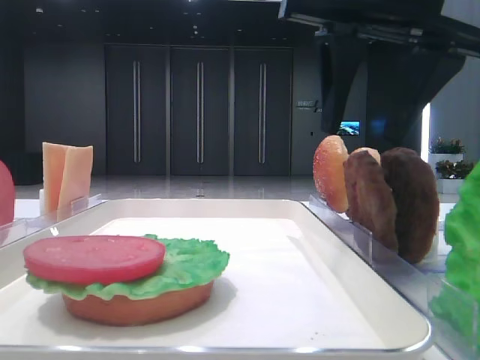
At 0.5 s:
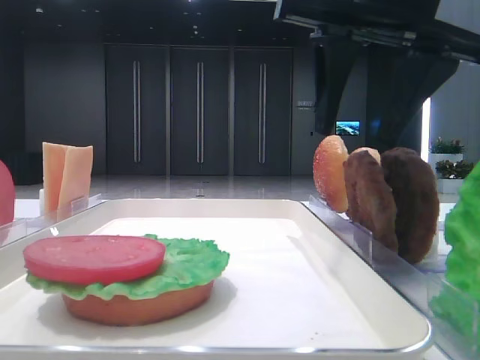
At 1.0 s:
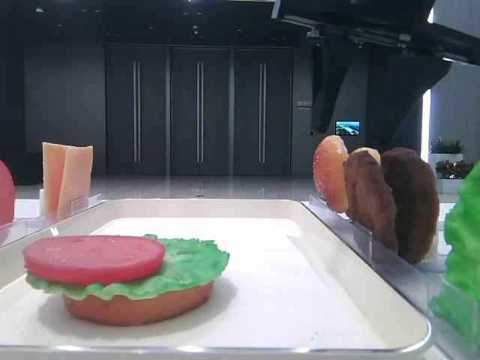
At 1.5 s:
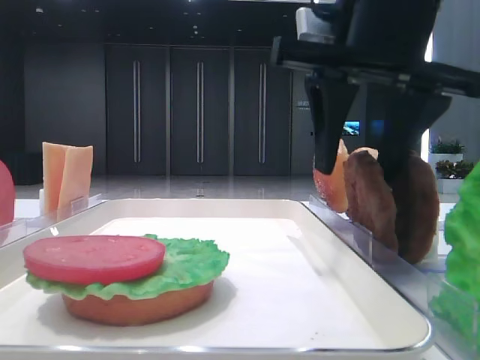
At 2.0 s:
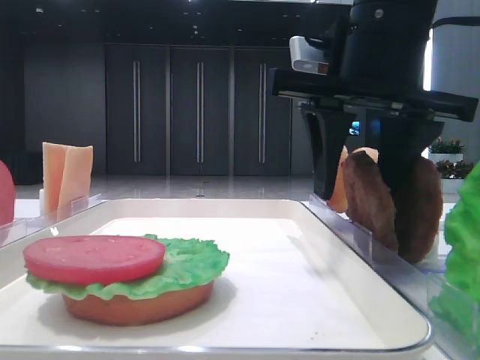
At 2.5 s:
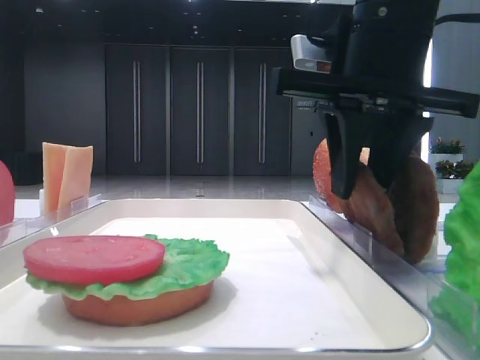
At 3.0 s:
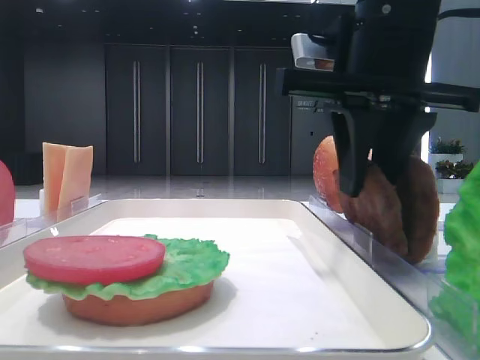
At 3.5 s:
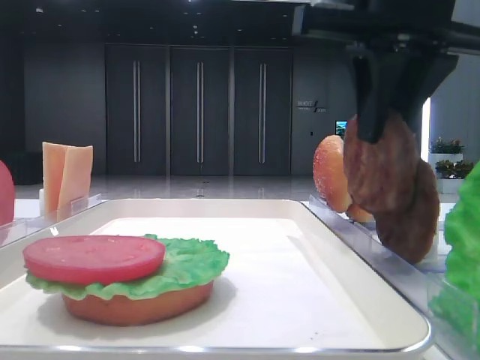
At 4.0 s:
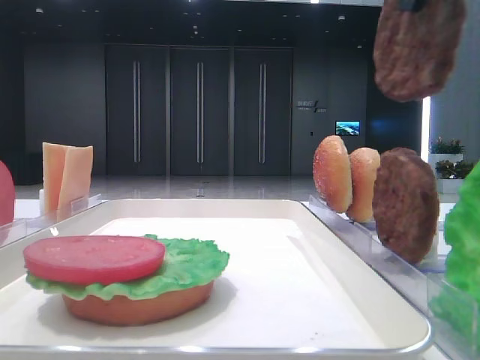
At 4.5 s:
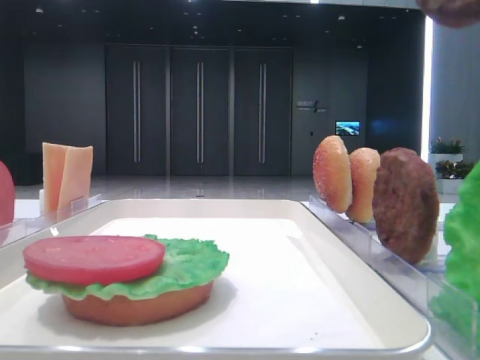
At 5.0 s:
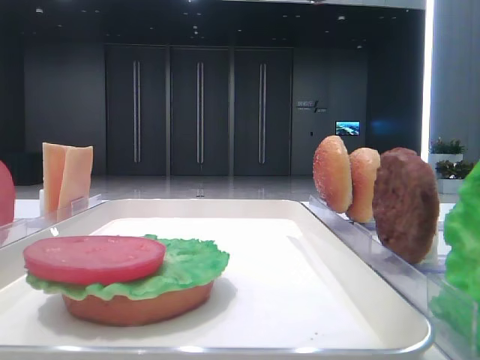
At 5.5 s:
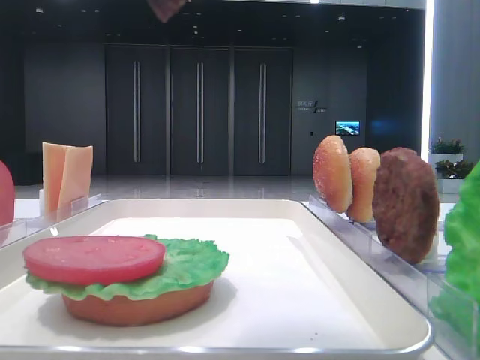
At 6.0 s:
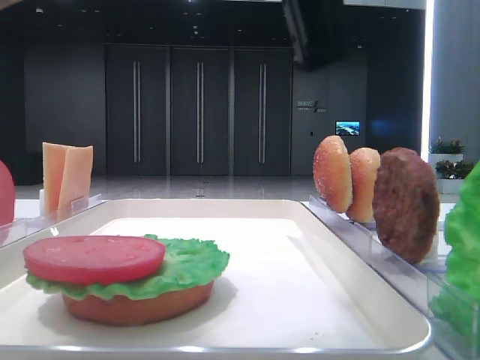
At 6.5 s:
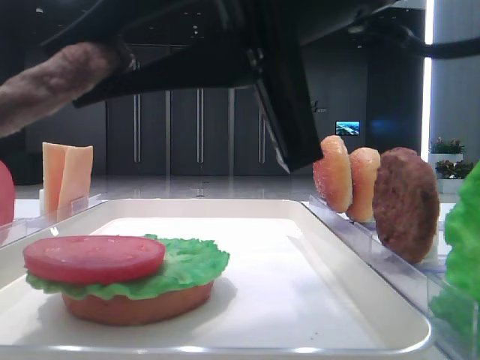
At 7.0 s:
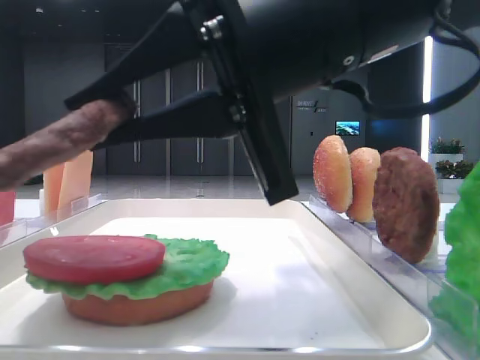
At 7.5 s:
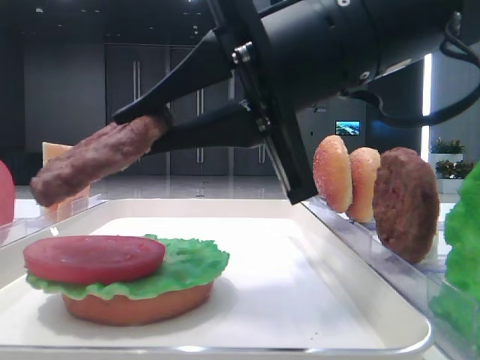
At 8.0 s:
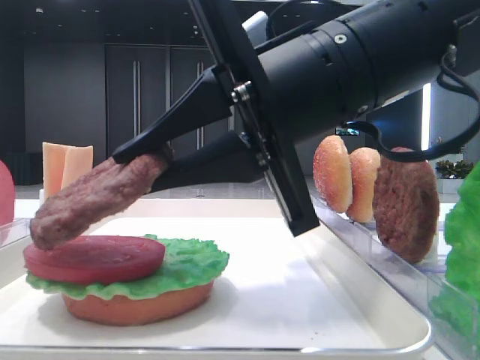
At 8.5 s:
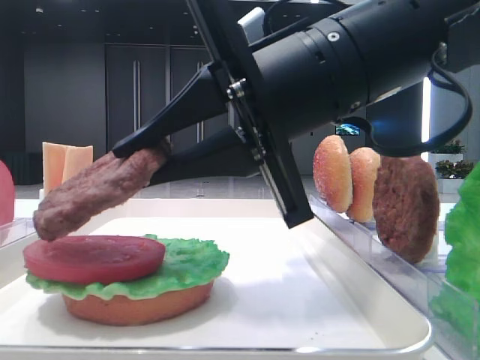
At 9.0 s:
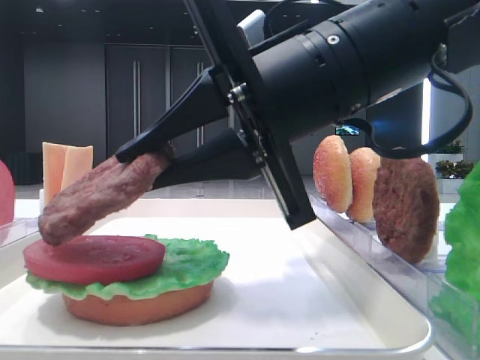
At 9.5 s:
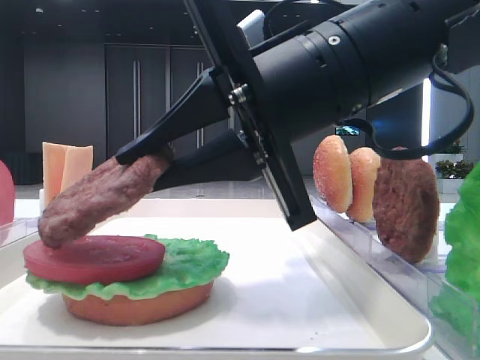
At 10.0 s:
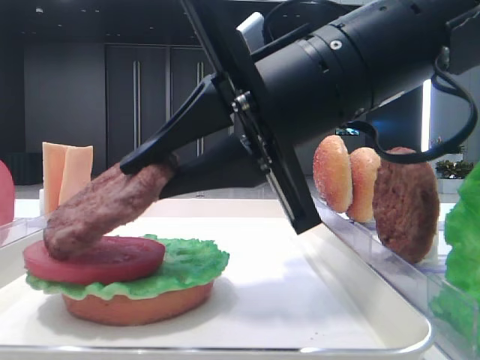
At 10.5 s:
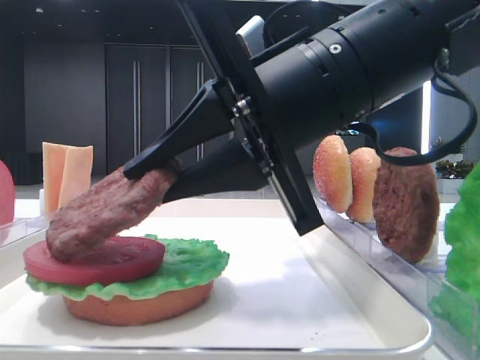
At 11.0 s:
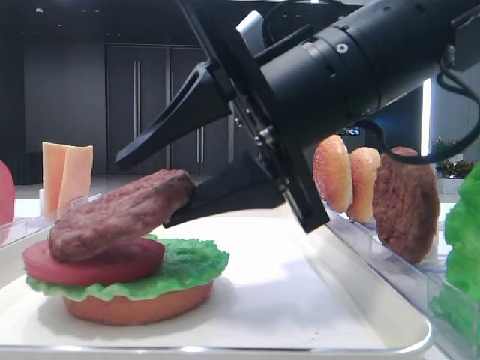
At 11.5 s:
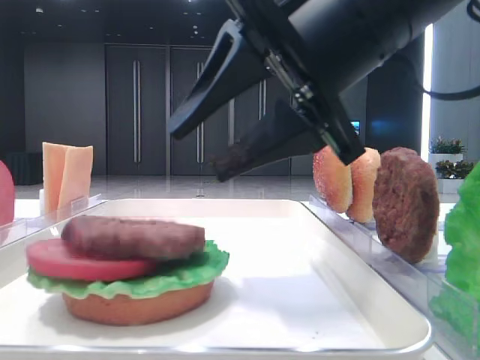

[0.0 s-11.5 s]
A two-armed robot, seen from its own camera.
Step, 0.0 to 3.0 s: Grab the patty with the right hand.
Step, 3.5 to 11.0 s: Place the patty on the tomato slice with the right hand.
0.0 to 2.0 s: The right gripper moves about 5 cm.
2.0 to 4.0 s: The right gripper goes some 15 cm upward and backward, and closes.
4.0 to 6.0 s: The right gripper shifts roughly 15 cm to the left, downward and backward.
6.0 to 7.5 s: The right gripper moves forward and downward, roughly 10 cm.
9.5 to 11.5 s: The right gripper opens.

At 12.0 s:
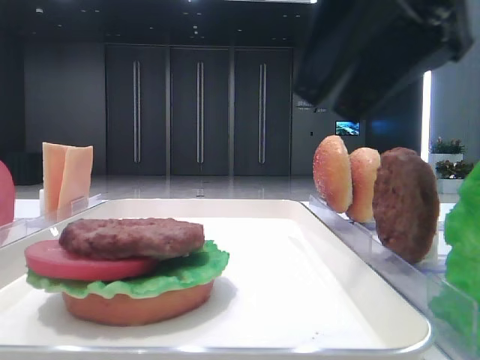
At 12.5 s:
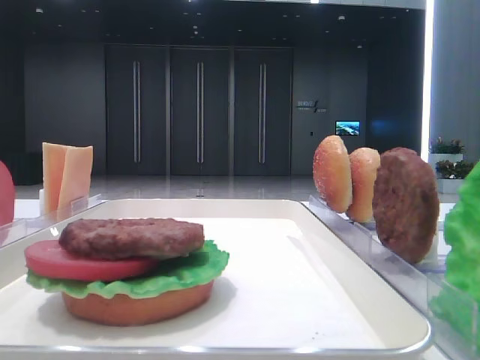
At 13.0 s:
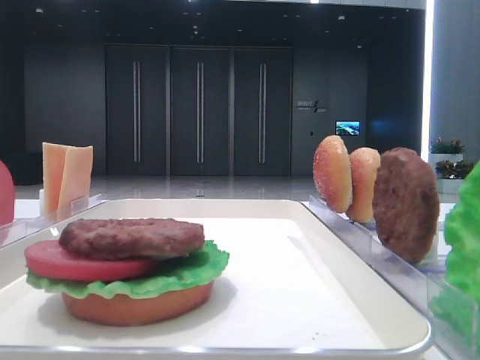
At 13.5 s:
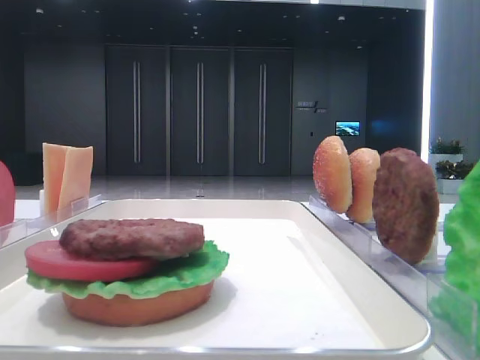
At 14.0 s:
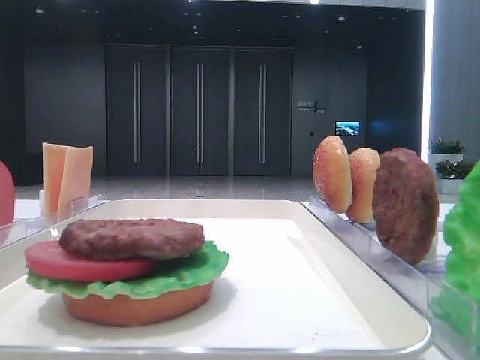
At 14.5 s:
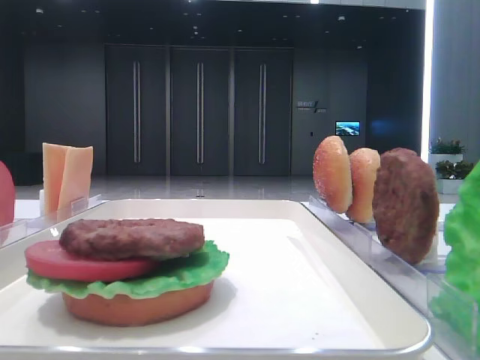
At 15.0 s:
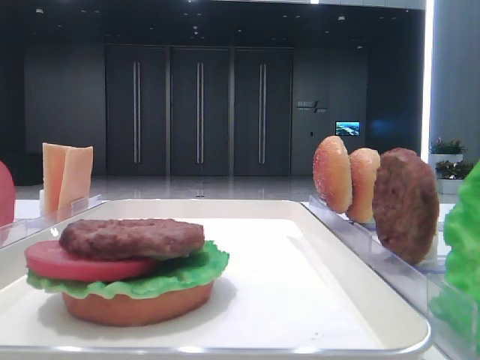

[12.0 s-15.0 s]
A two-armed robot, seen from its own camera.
12.0 to 13.5 s: The right gripper travels backward and to the right by about 25 cm.

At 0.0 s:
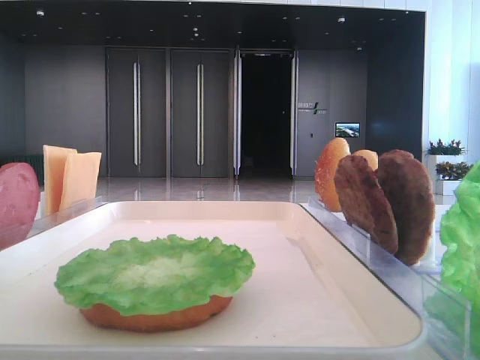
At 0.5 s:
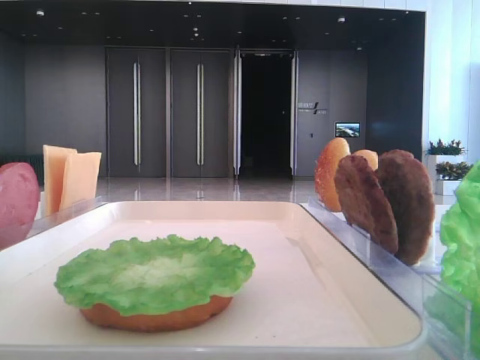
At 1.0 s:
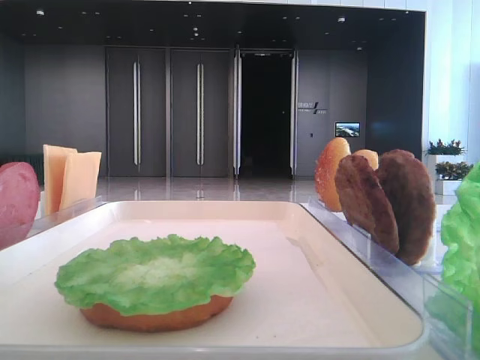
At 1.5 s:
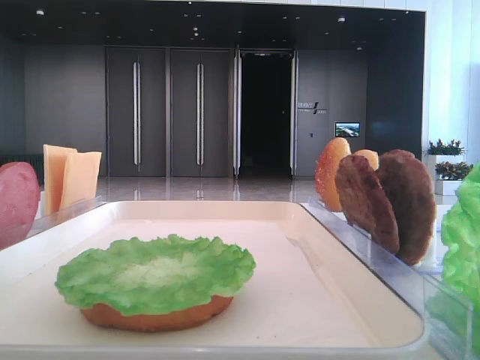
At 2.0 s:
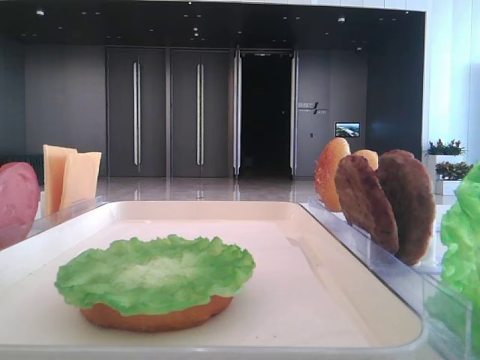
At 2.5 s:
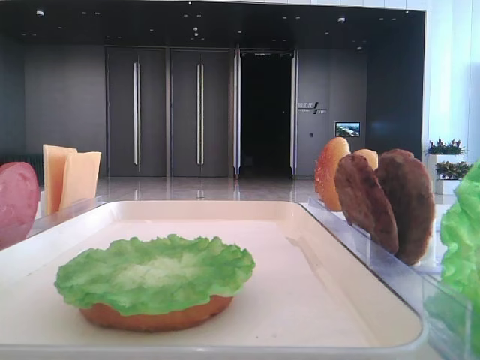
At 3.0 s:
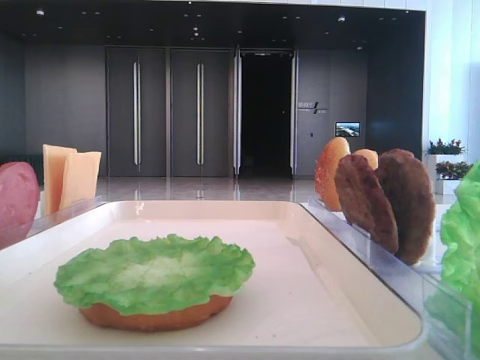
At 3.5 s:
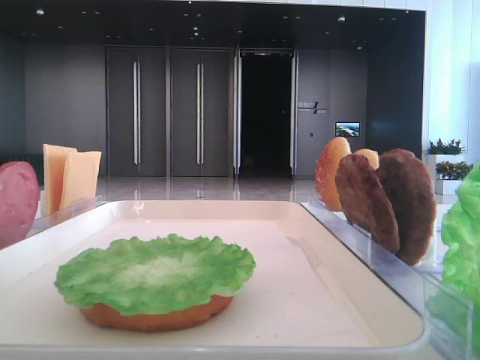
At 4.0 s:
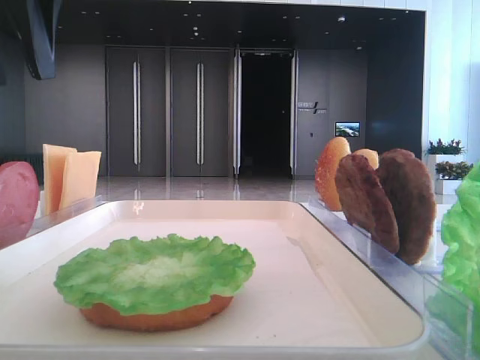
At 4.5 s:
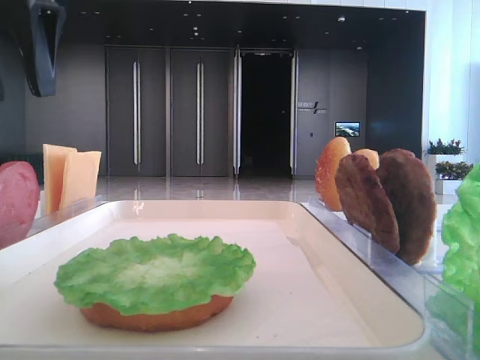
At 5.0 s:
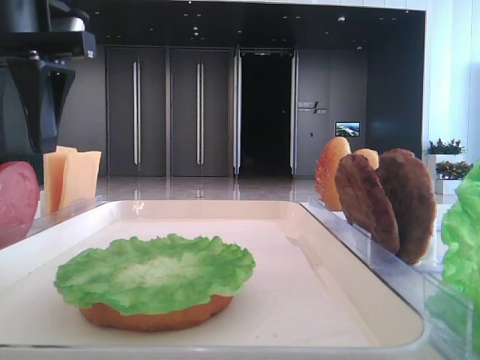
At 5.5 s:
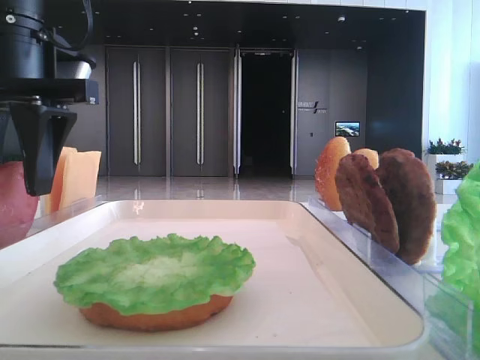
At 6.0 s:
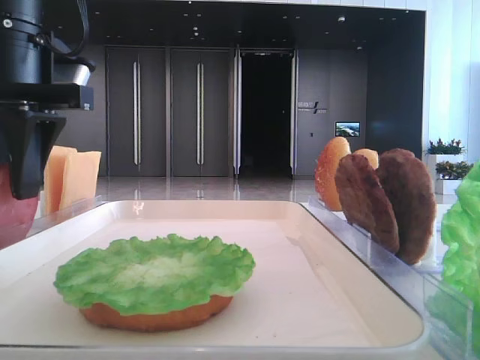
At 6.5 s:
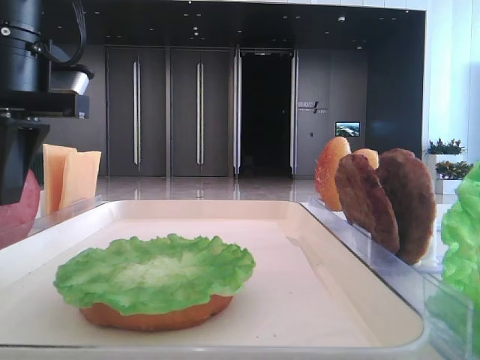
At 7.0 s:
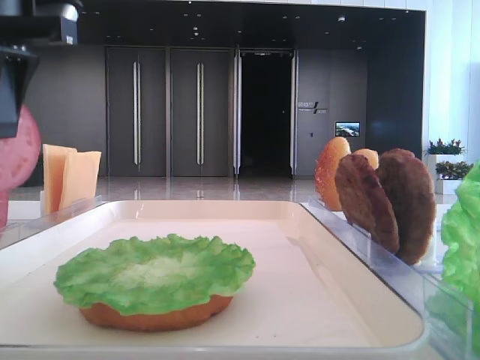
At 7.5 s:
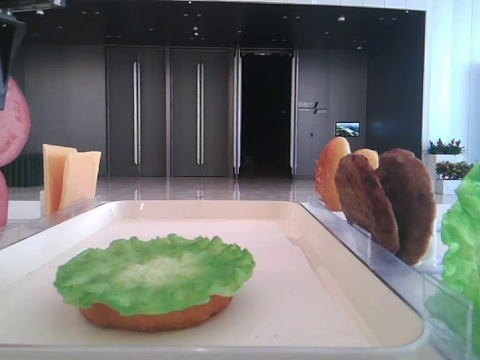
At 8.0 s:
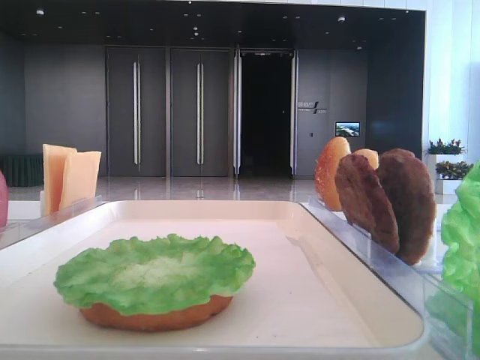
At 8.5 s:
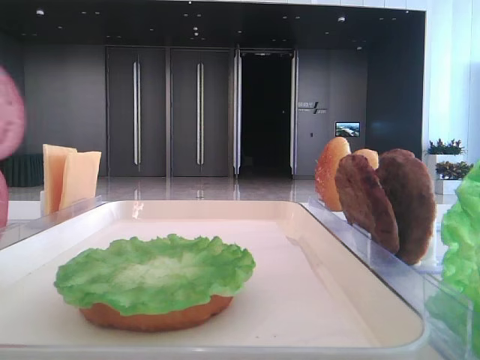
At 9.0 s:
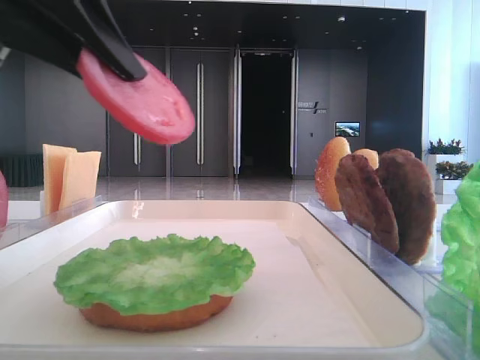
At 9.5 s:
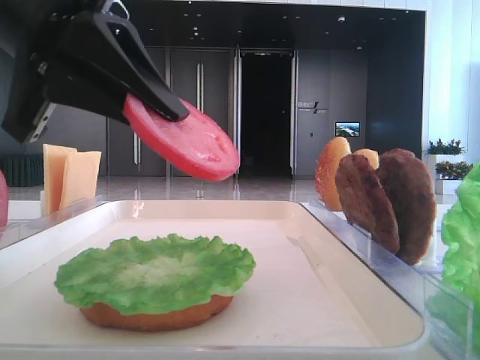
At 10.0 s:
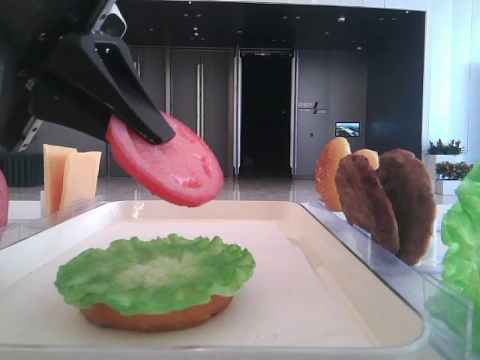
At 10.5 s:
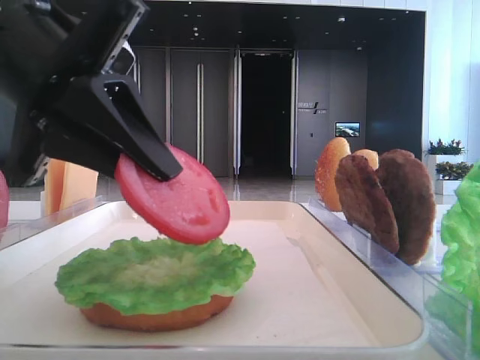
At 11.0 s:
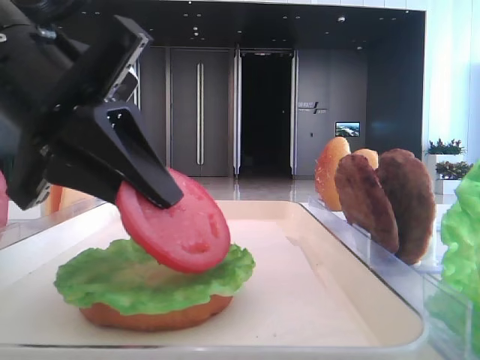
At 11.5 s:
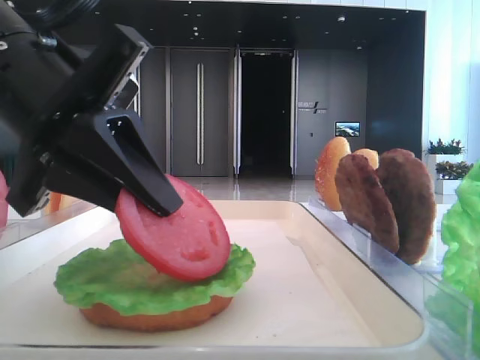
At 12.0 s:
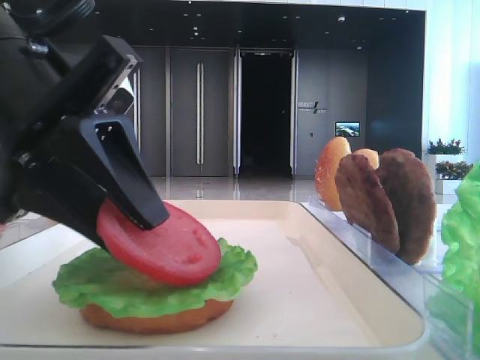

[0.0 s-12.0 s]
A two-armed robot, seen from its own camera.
Step, 0.0 to 6.0 s: Pick up the tomato slice with the left hand.
2.0 to 4.0 s: The left gripper shifts some 30 cm forward and to the right.
4.0 to 6.0 s: The left gripper goes about 10 cm downward.
6.0 to 8.0 s: The left gripper heads backward and upward, covering roughly 10 cm, and closes up.
8.0 to 10.0 s: The left gripper is displaced downward and to the right by some 10 cm.
10.0 to 12.0 s: The grippers move only a little.
